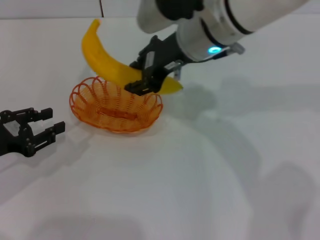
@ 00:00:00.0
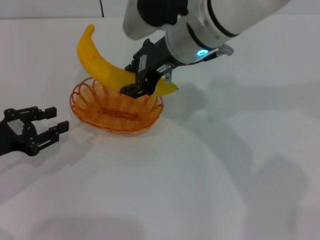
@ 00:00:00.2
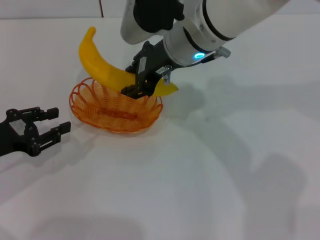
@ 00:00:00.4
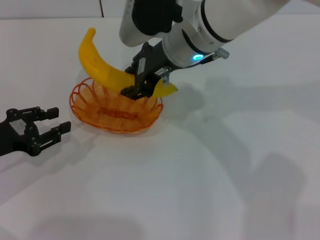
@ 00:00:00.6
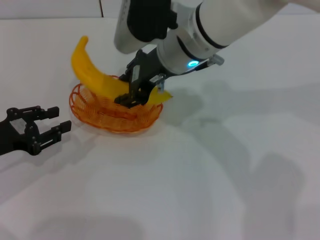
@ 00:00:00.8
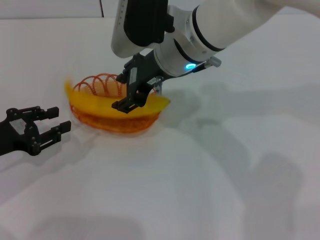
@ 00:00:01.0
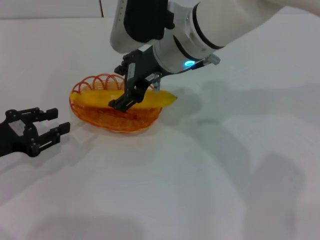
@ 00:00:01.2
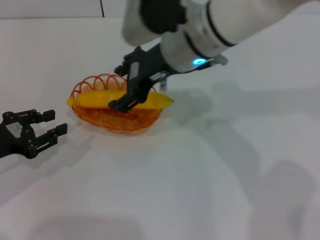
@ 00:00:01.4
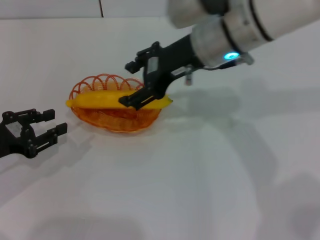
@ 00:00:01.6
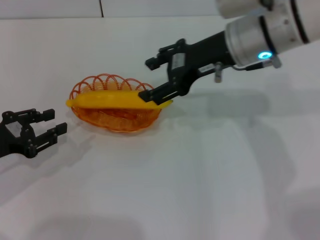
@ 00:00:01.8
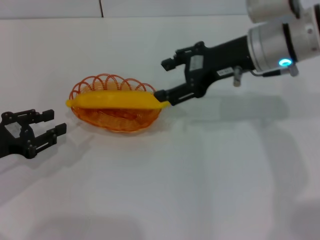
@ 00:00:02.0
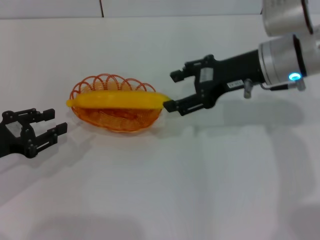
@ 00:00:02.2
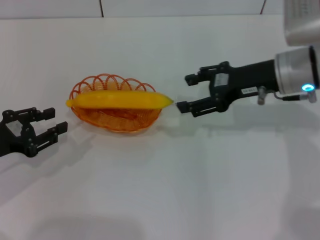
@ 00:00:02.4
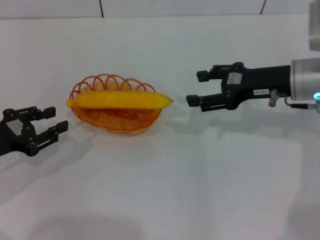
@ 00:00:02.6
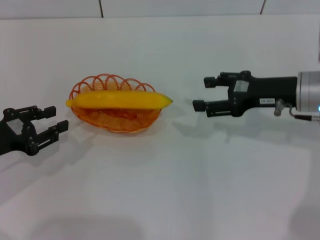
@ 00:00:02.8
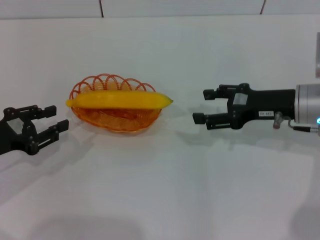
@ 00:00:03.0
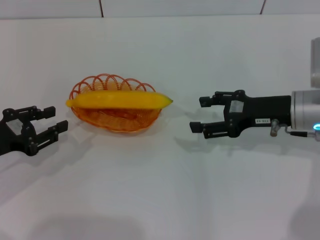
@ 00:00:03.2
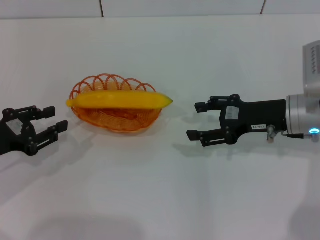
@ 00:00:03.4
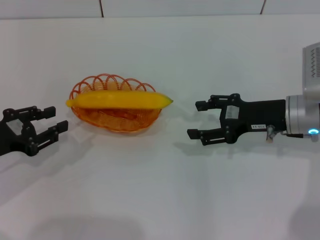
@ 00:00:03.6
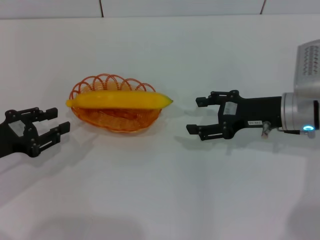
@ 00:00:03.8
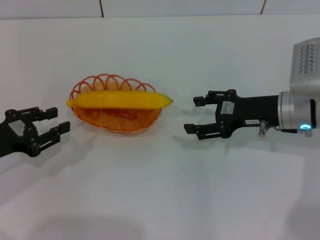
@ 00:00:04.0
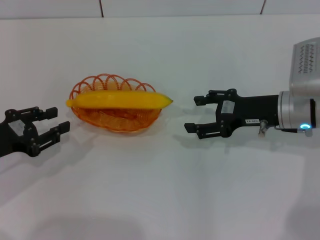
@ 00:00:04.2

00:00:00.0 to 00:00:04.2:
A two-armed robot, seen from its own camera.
Step, 00:00:00.0 to 00:00:02.2: Place the banana into the basket with the right gripper.
00:00:00.0 to 00:00:01.4: The right gripper opens.
00:00:01.4 to 00:00:02.8: The right gripper heads to the right and downward, covering some 20 cm.
00:00:02.8 to 00:00:04.2: The grippers stay close to where they were, moving slightly.
